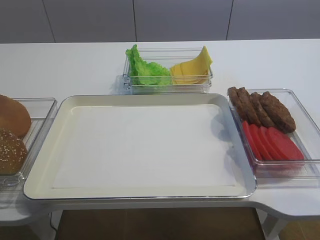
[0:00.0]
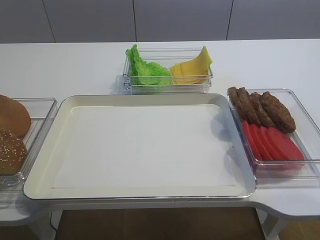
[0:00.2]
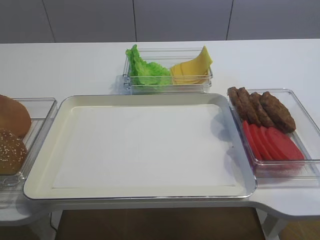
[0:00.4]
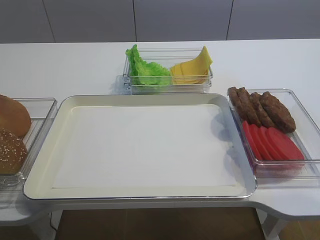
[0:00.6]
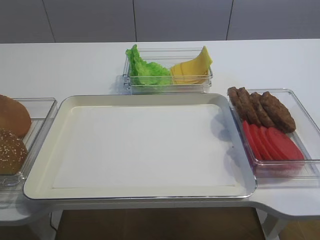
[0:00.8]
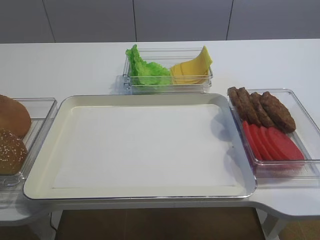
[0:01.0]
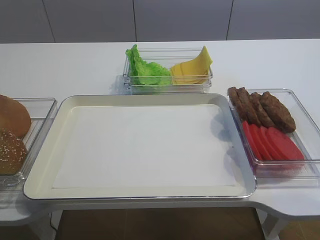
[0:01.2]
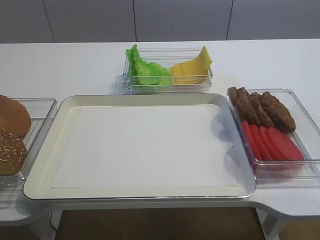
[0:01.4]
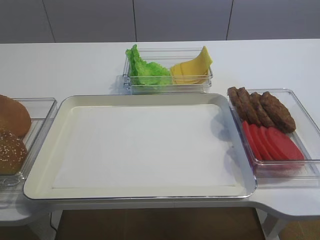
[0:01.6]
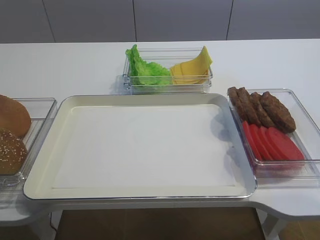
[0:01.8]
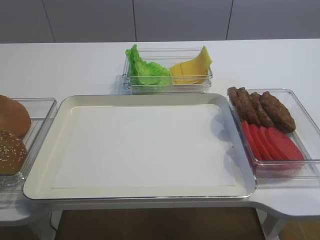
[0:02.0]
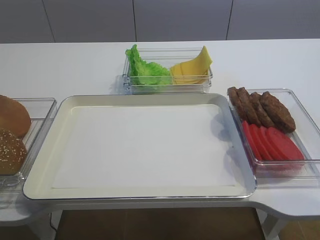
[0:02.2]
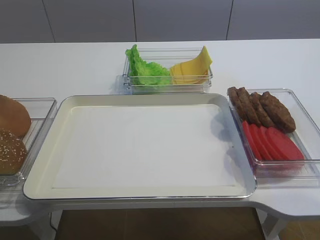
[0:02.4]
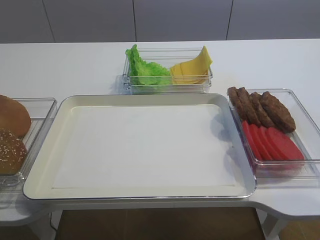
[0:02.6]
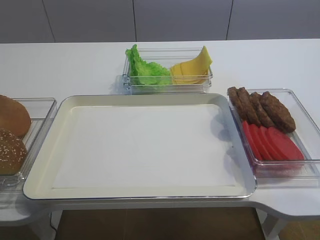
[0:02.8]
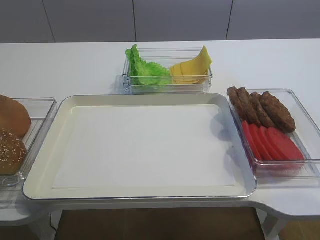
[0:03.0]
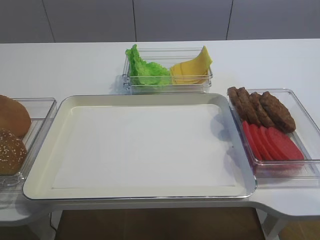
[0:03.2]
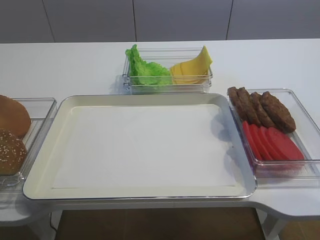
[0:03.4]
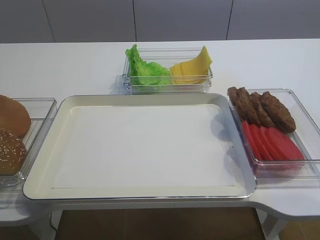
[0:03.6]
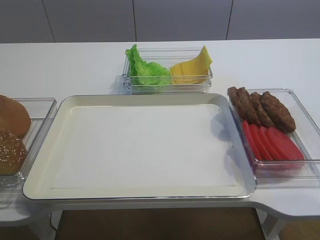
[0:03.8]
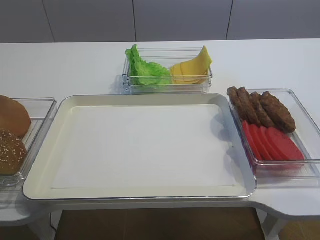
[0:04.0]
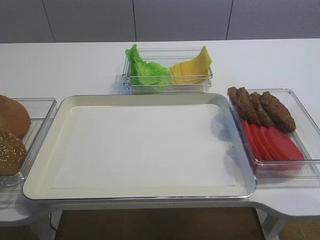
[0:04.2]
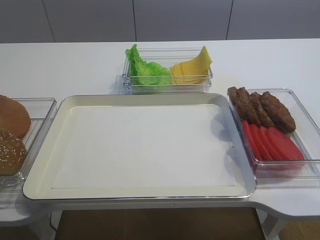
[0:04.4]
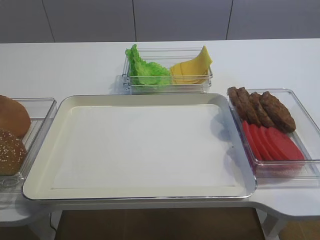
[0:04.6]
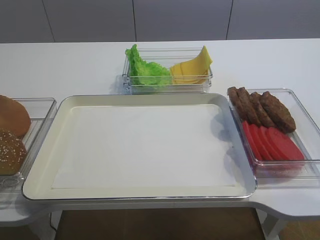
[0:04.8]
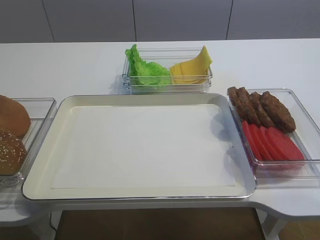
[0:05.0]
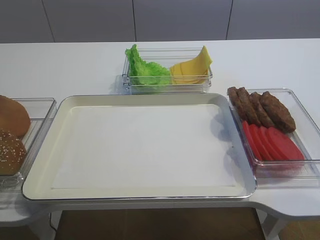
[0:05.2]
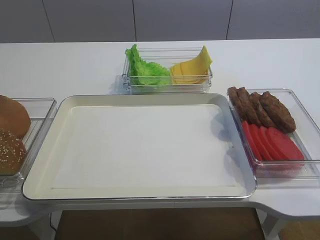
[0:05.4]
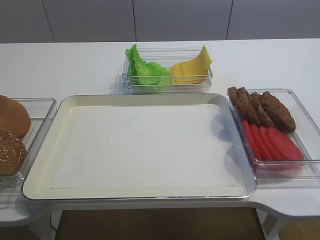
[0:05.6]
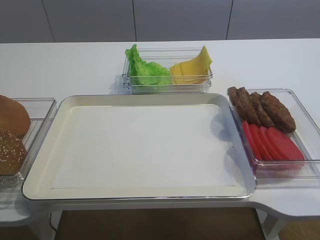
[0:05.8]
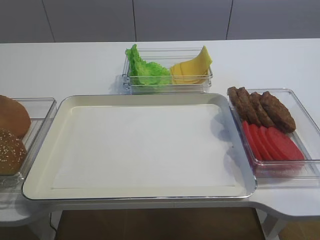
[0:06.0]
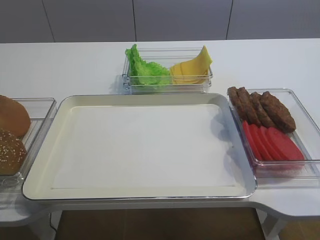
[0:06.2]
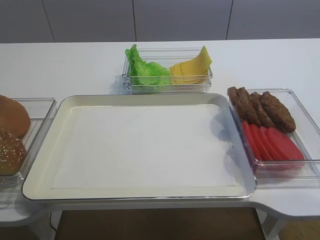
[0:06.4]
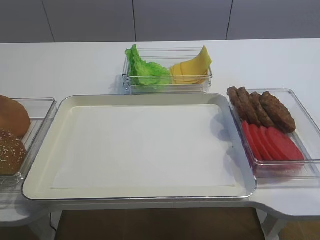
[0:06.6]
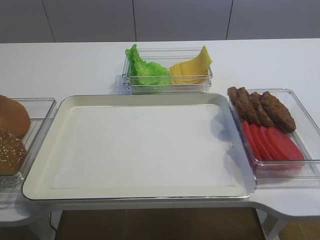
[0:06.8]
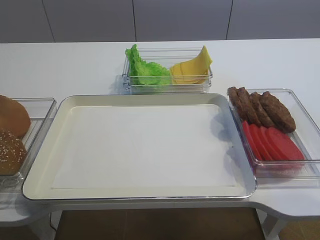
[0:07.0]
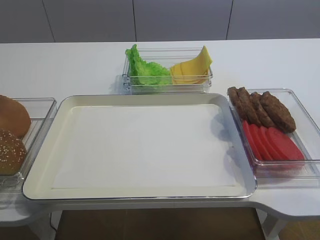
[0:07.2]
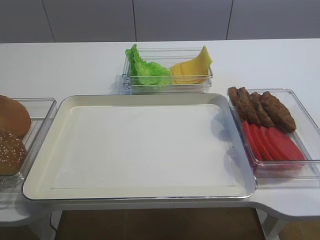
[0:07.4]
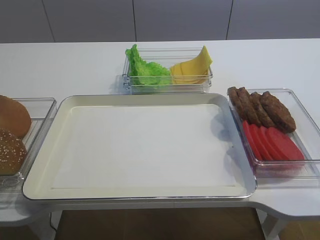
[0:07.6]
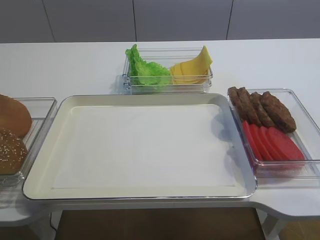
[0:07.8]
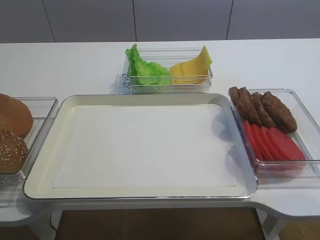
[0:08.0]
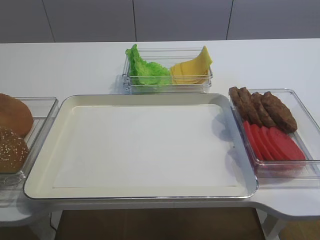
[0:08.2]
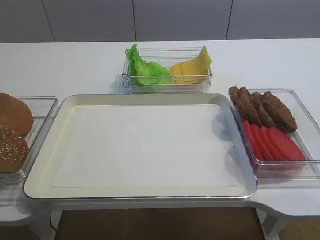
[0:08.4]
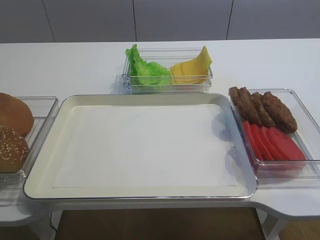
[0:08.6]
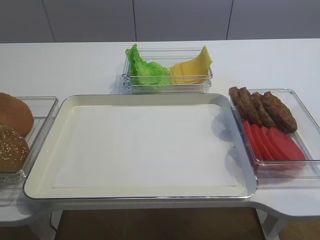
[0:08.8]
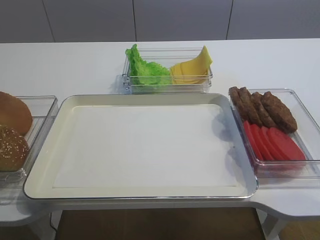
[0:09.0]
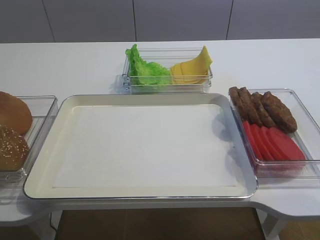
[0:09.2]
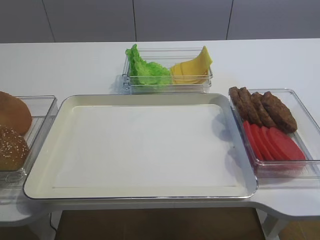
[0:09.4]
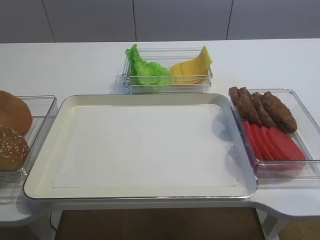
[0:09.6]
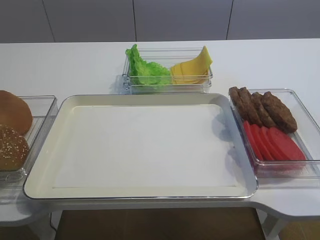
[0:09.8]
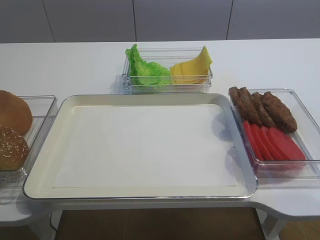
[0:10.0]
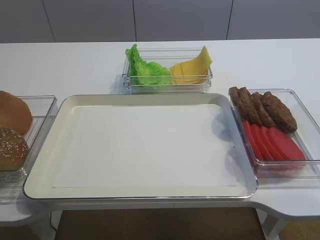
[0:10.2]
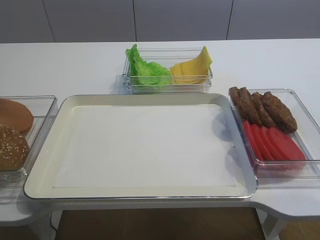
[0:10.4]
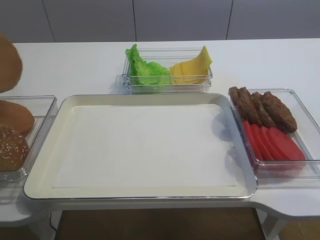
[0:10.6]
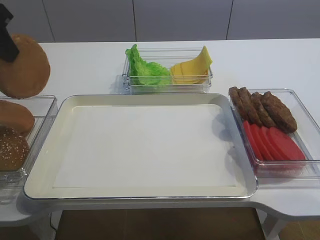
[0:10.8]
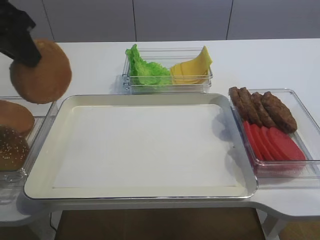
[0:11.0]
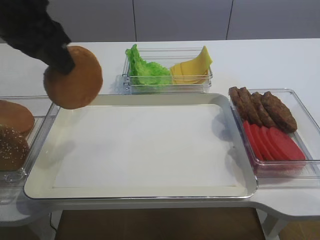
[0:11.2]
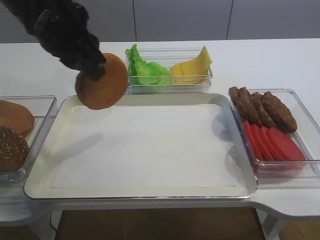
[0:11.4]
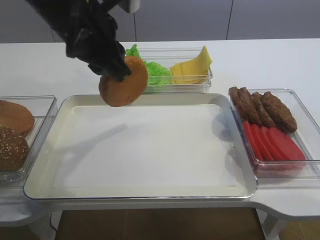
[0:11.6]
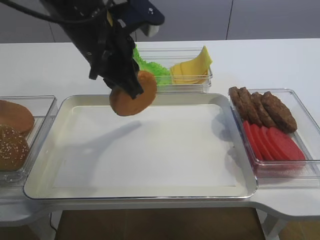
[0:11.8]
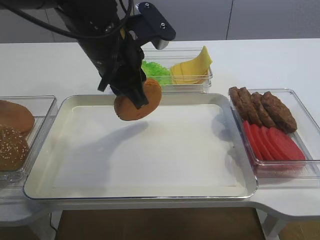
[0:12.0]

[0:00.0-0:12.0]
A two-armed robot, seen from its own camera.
7.6 to 9.0 s: The left gripper closes.
10.4 to 12.0 s: The left gripper shifts about 25 cm to the right.

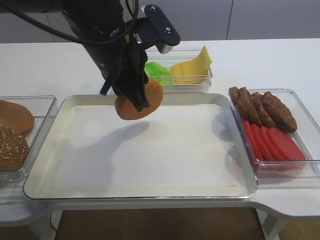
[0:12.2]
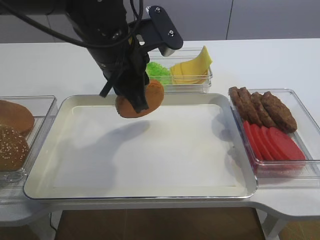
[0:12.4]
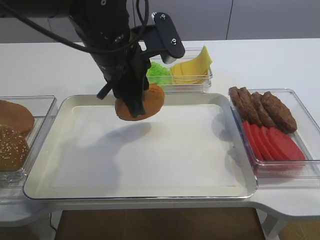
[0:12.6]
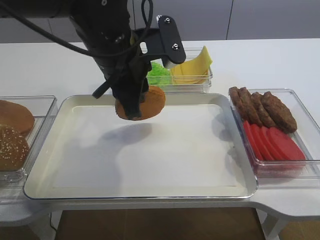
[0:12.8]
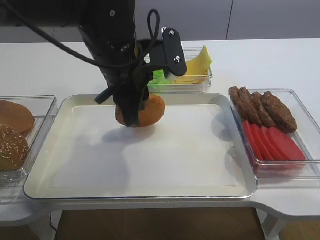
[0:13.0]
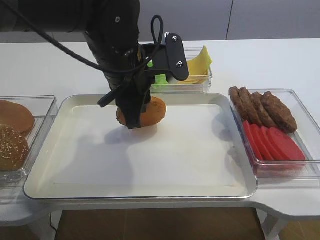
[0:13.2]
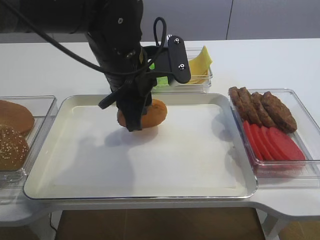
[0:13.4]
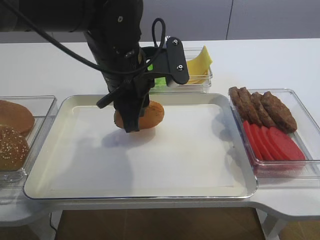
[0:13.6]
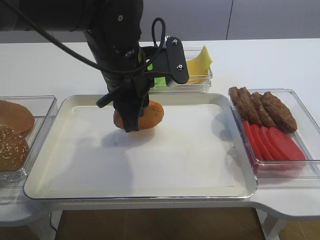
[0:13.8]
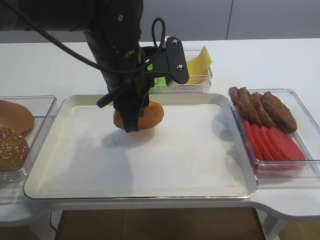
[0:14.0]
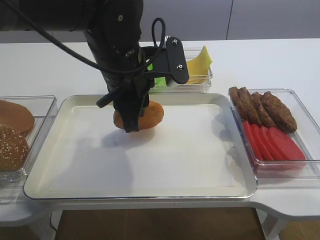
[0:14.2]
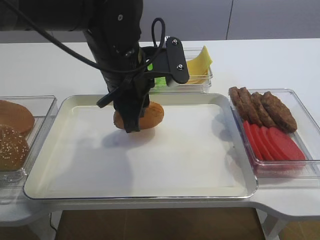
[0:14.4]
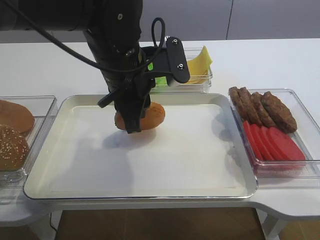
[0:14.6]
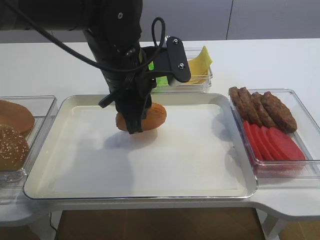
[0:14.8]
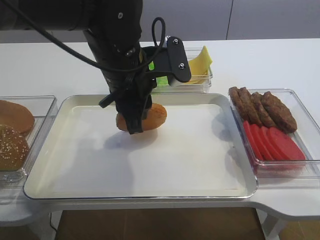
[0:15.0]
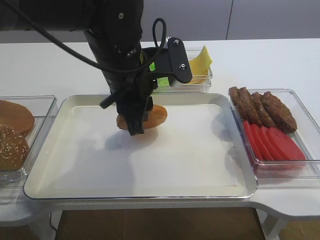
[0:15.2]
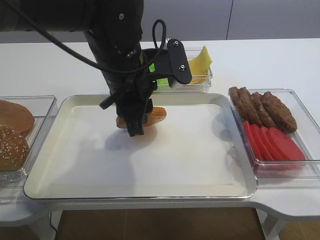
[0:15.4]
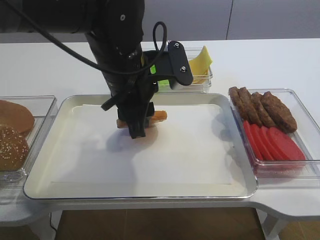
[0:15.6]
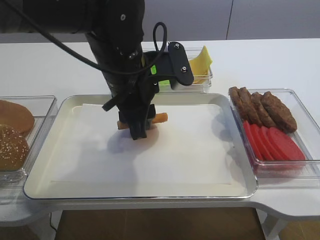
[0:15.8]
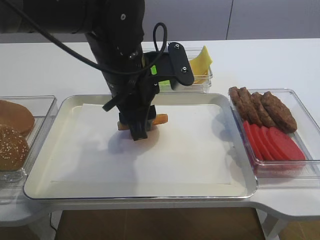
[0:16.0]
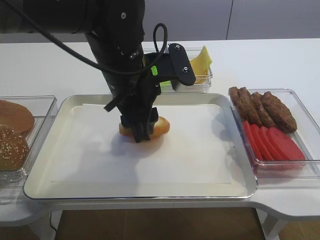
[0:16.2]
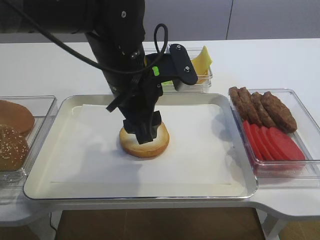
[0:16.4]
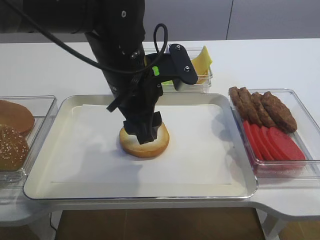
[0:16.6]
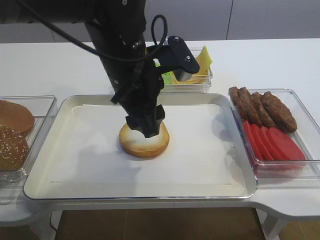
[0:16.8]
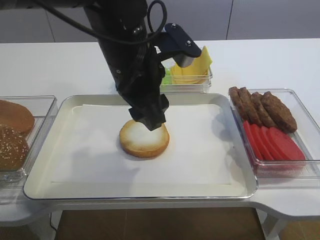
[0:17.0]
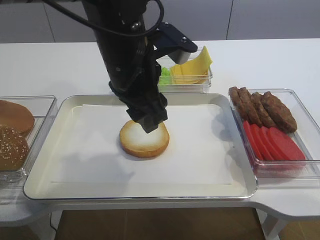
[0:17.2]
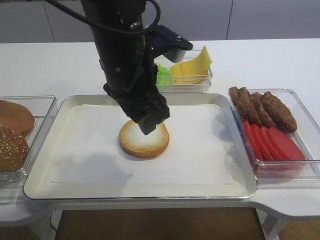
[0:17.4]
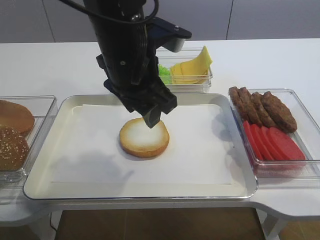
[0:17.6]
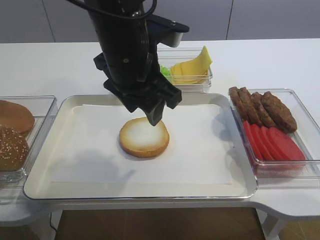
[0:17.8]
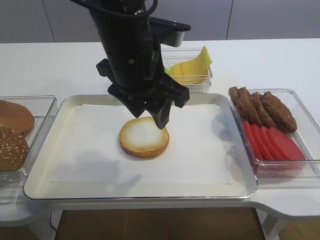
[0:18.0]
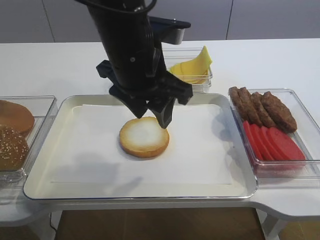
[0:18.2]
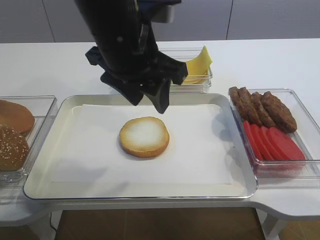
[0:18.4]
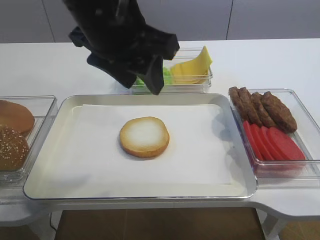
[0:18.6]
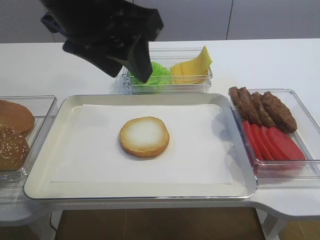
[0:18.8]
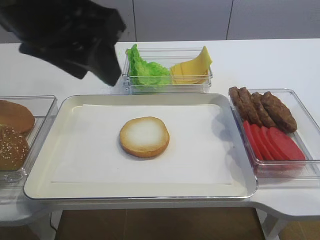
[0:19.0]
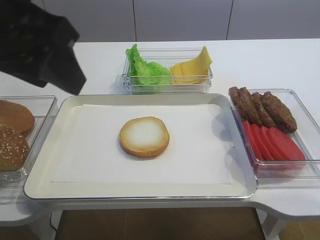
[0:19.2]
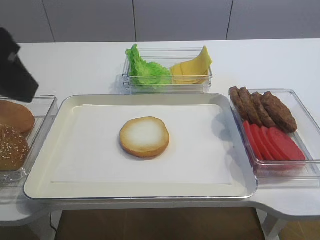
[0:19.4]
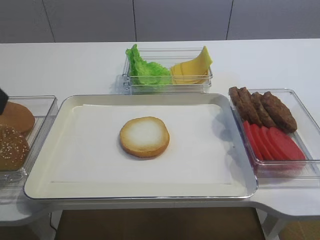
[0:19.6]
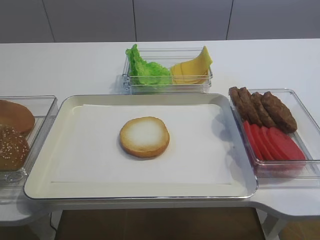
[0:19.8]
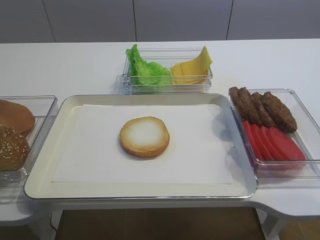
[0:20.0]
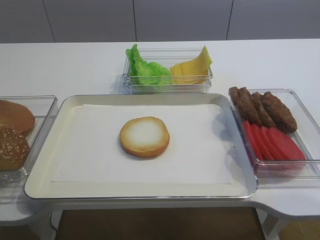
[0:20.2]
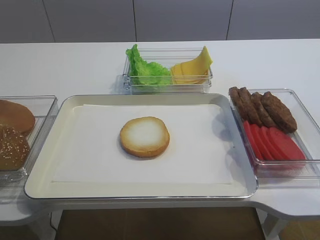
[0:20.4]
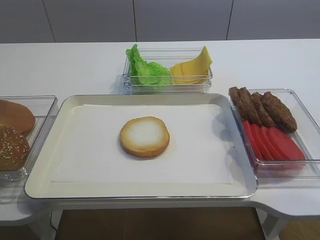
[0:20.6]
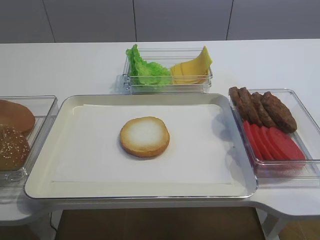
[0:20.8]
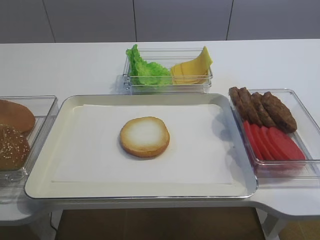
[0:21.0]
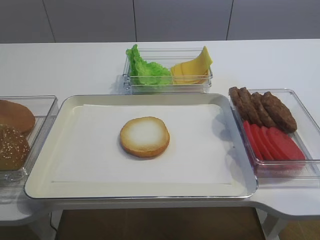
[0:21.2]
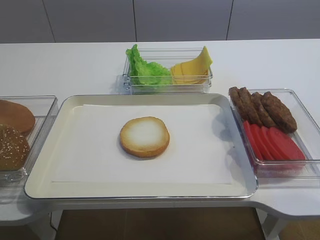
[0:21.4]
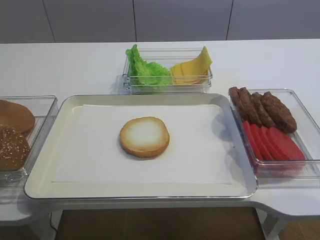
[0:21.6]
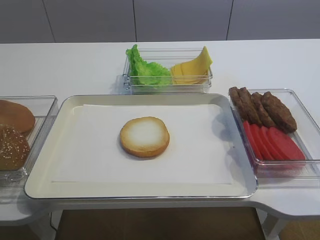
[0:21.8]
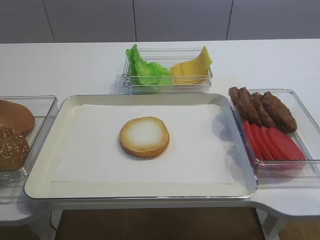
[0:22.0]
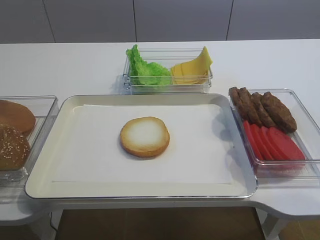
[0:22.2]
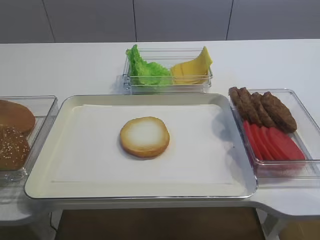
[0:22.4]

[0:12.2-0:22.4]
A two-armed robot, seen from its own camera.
Step, 12.2 to 17.4 s: Place the bread slice on the tray with the left gripper.
12.2 to 13.6 s: The grippers move only a little.
13.6 to 15.2 s: Neither gripper changes place.
15.2 to 16.6 s: The left gripper opens its fingers.
18.0 to 19.4 s: The left gripper goes some 20 cm to the left, backward and upward.
19.4 to 21.0 s: The left gripper heads backward, to the left and downward, covering roughly 20 cm.

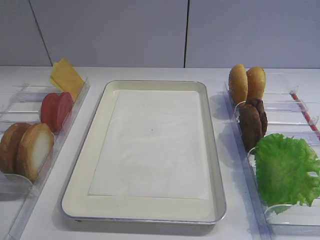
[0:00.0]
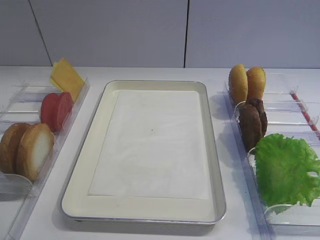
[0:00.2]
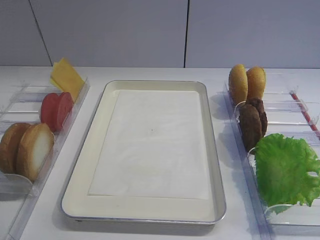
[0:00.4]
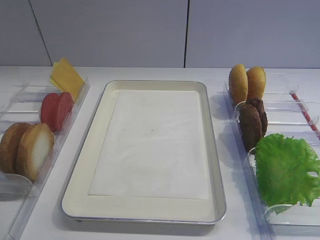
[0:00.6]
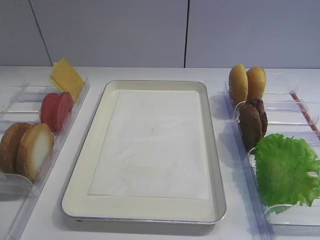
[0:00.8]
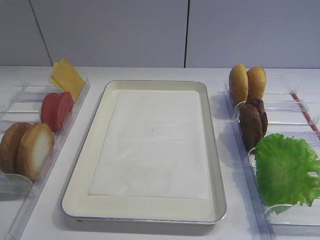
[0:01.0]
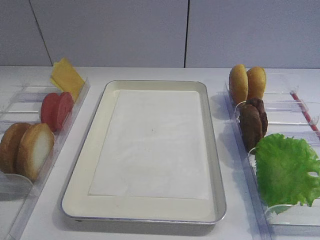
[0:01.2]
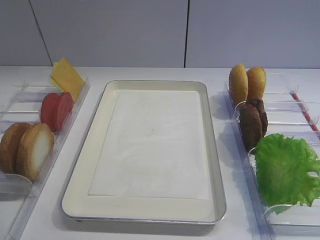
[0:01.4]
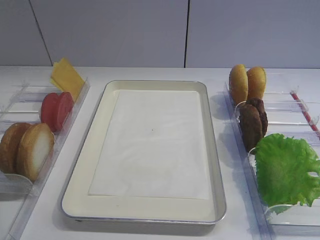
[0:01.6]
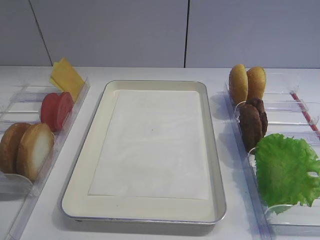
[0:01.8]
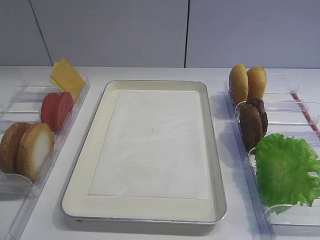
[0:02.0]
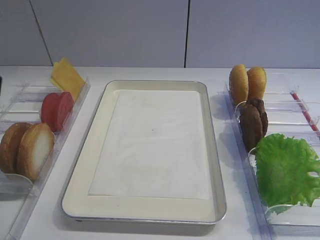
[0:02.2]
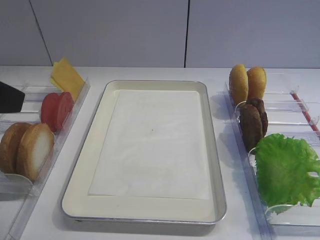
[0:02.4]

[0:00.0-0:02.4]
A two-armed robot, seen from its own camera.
1.2 to 2.4 s: The left gripper goes about 10 cm forward.
